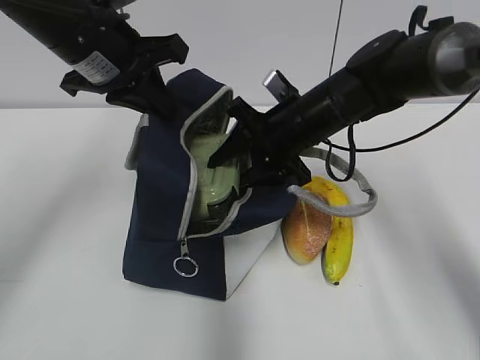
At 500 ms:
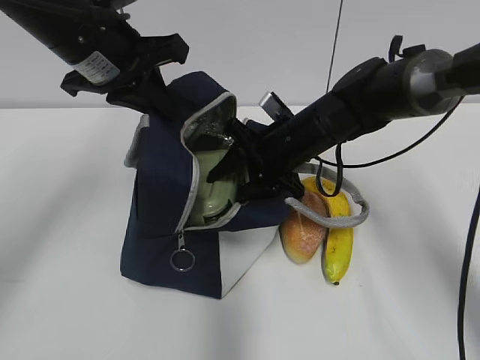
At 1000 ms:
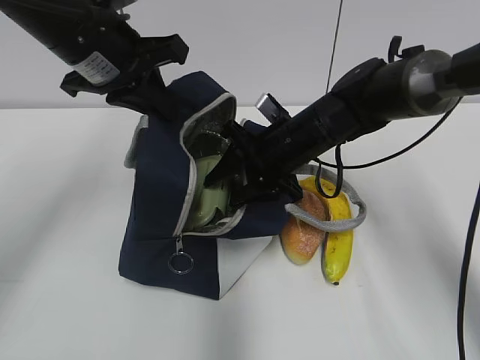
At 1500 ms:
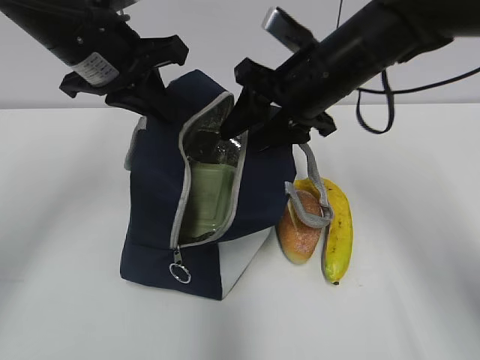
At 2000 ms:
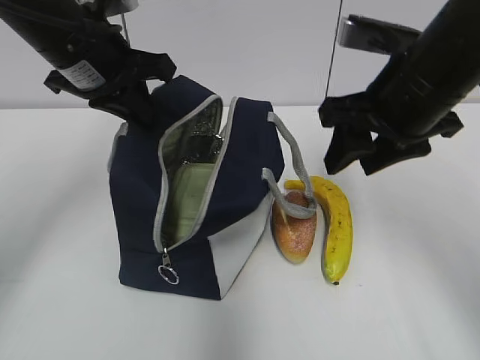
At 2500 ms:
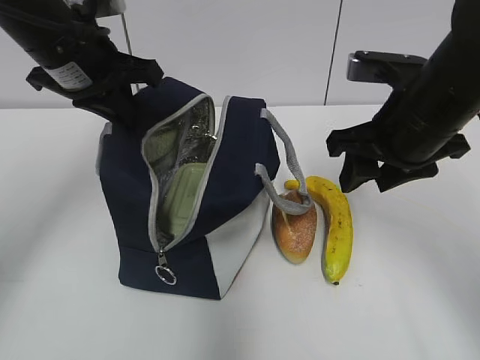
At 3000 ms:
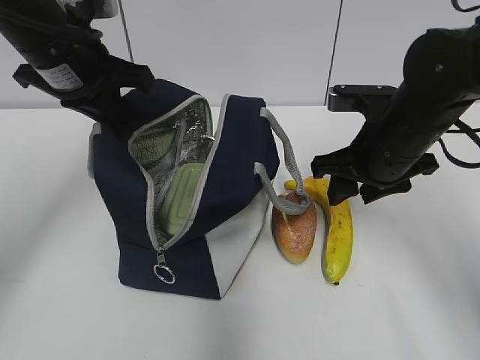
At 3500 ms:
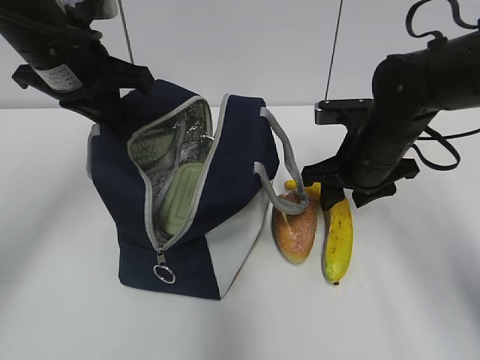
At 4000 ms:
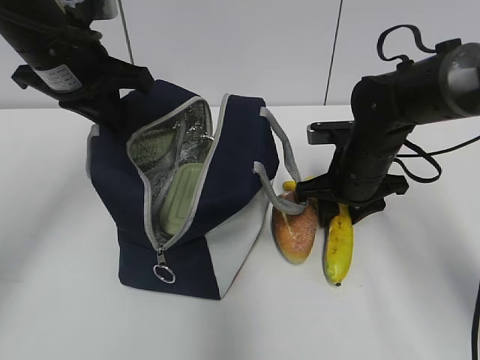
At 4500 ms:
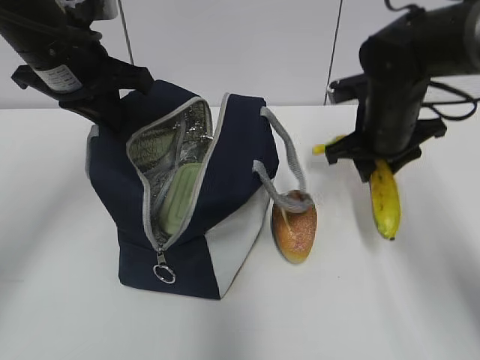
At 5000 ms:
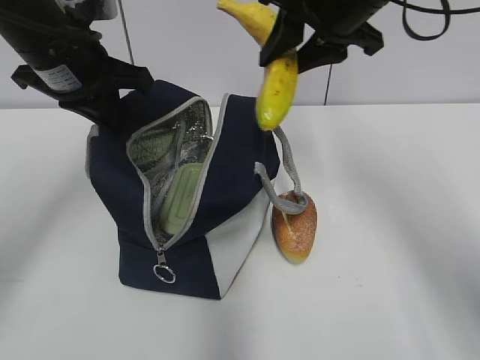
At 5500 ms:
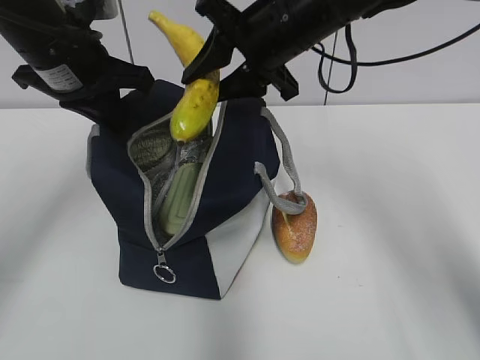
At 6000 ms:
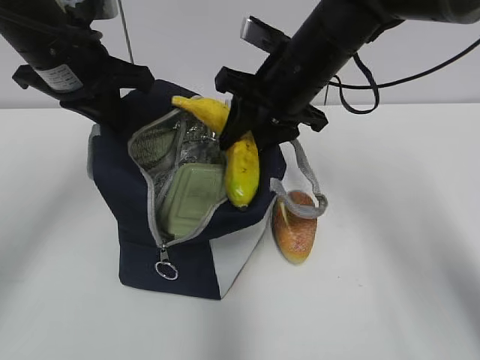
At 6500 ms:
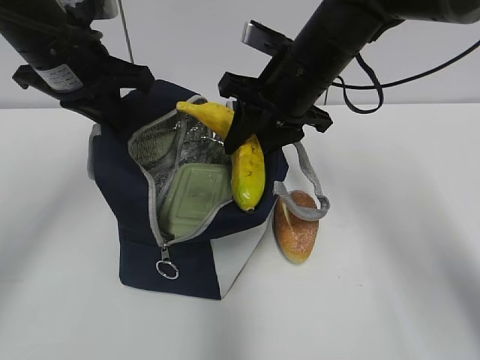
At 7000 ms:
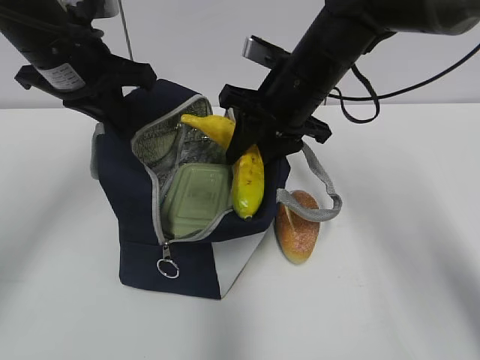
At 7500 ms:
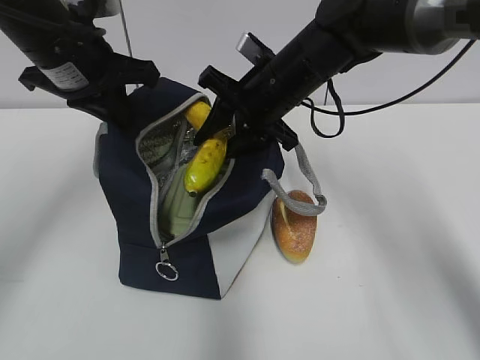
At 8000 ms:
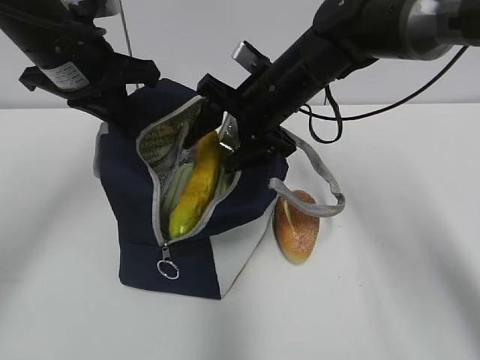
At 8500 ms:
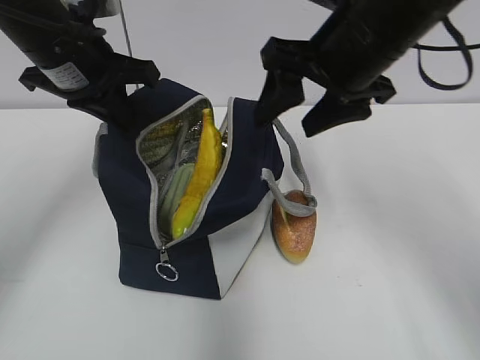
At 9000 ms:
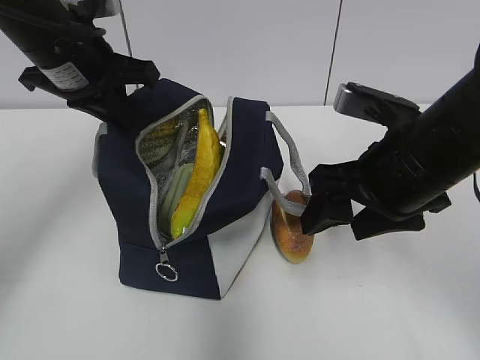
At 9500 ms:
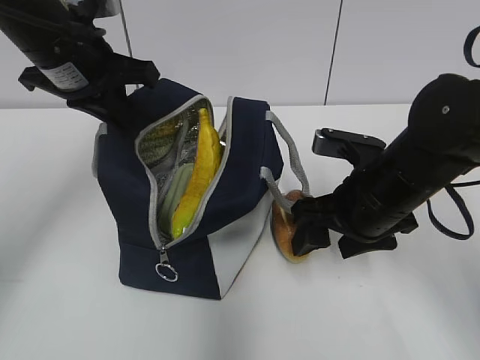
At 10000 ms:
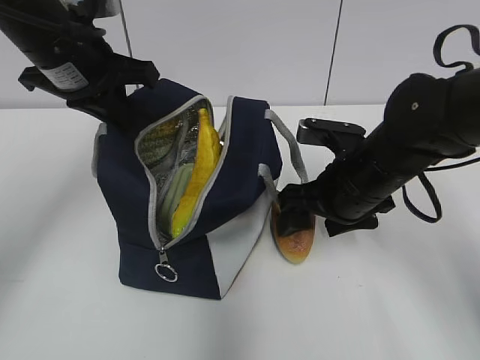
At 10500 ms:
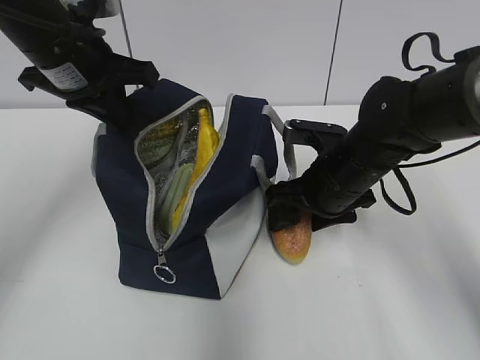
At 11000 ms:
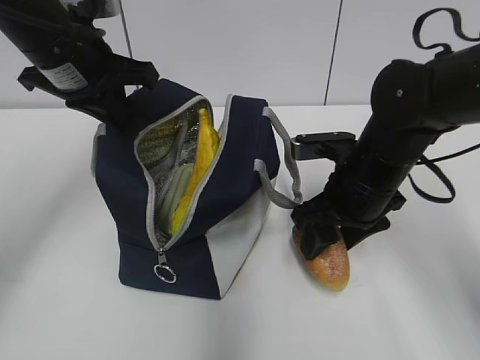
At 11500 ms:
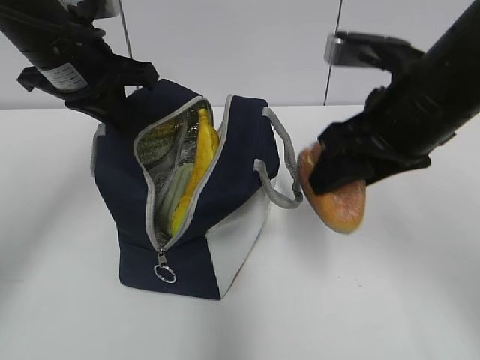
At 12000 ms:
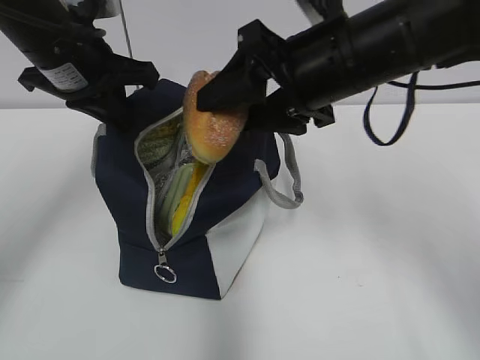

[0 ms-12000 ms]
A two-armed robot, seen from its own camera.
Step, 1500 ms to 4000 ms: Grab the banana with your right hand.
Step, 4500 ms to 8000 ms: Place it into the bag with your right hand.
Step, 8500 ms to 10500 ms: Grab the bread with your right hand.
0 ms to 2000 ms: The right gripper heads upward, backward and to the right, covering some 15 cm.
2000 ms to 4000 ms: The right gripper heads downward and forward, covering some 15 cm.
4000 ms to 6000 ms: The right gripper is displaced upward and to the left by approximately 15 cm.
6000 ms to 8000 ms: The right gripper opens.
8000 ms to 10000 ms: The right gripper moves backward, to the right and downward, approximately 15 cm.
10000 ms to 12000 ms: The right gripper shifts some 15 cm upward.

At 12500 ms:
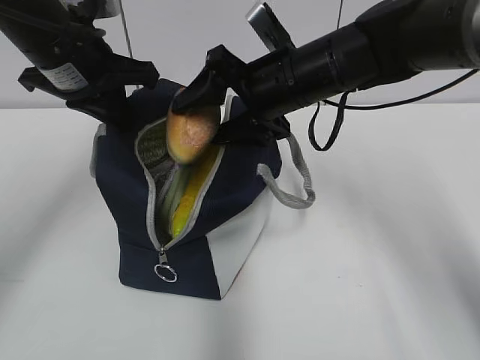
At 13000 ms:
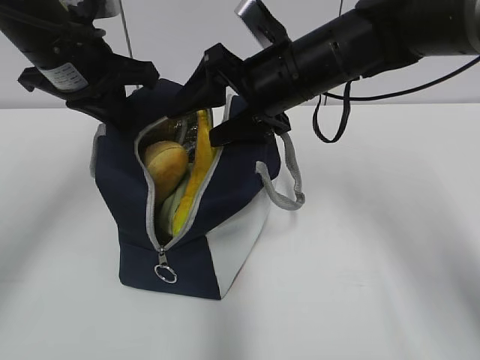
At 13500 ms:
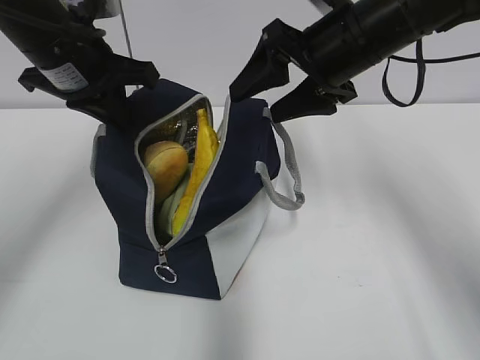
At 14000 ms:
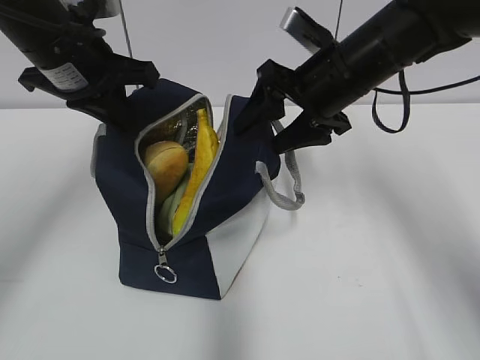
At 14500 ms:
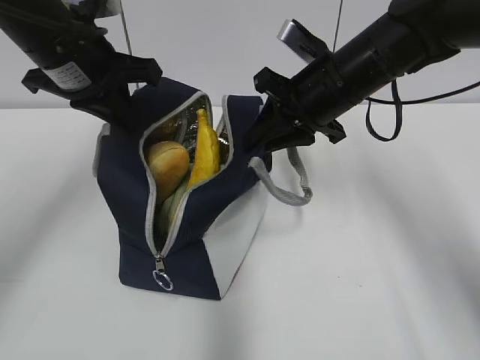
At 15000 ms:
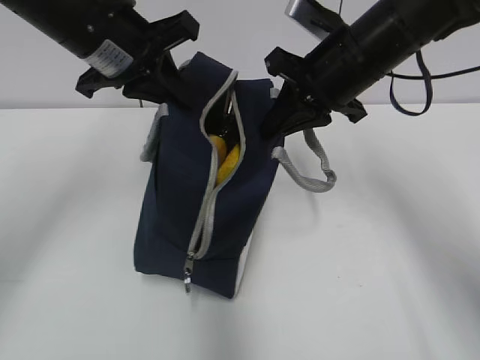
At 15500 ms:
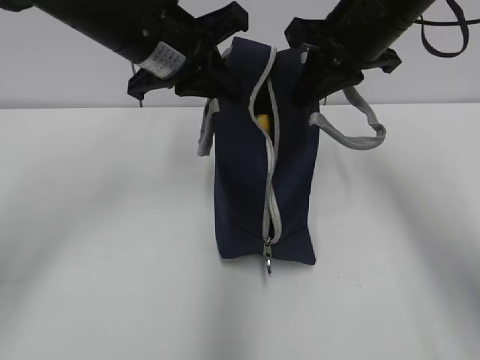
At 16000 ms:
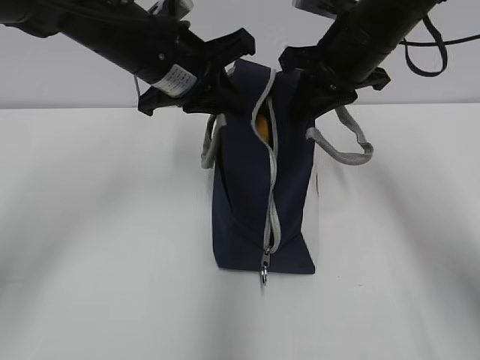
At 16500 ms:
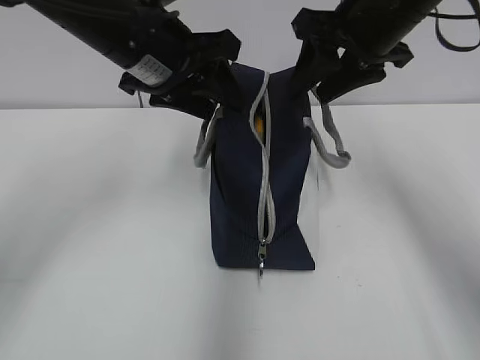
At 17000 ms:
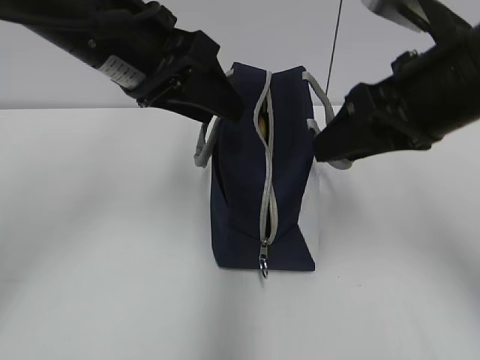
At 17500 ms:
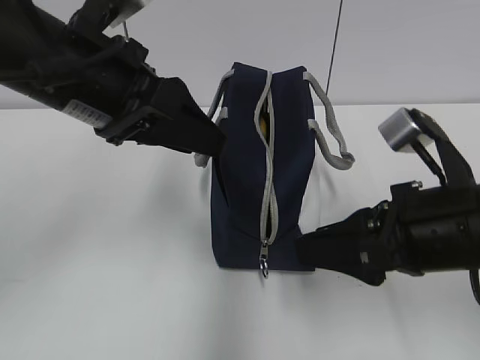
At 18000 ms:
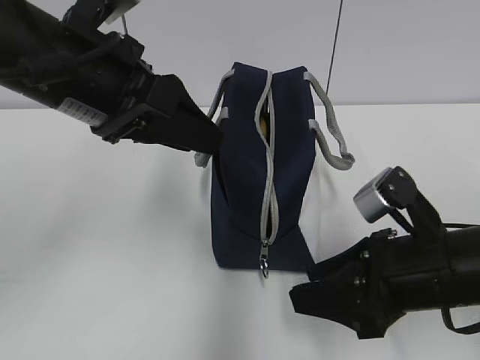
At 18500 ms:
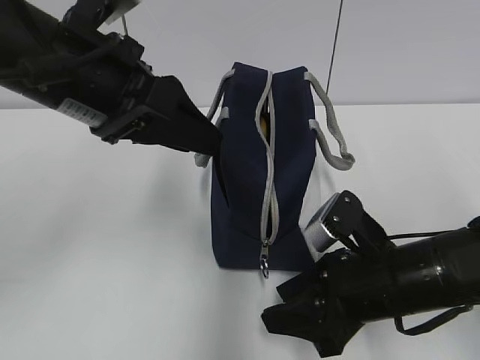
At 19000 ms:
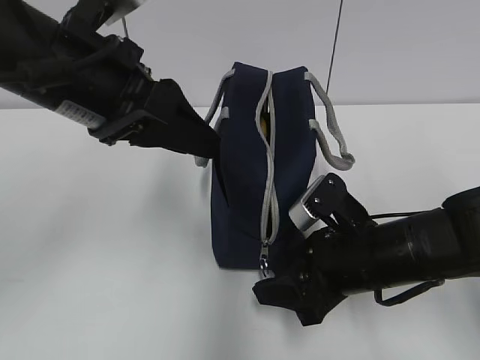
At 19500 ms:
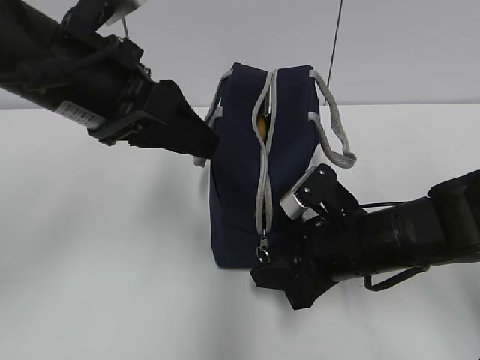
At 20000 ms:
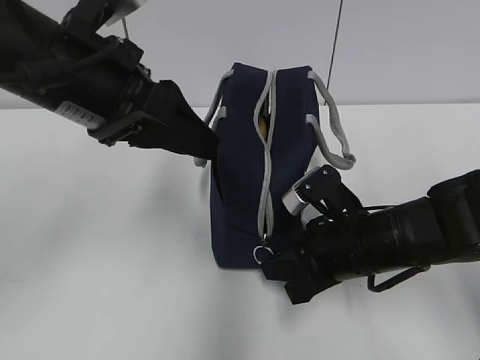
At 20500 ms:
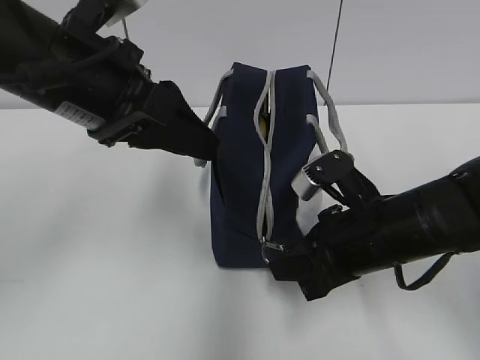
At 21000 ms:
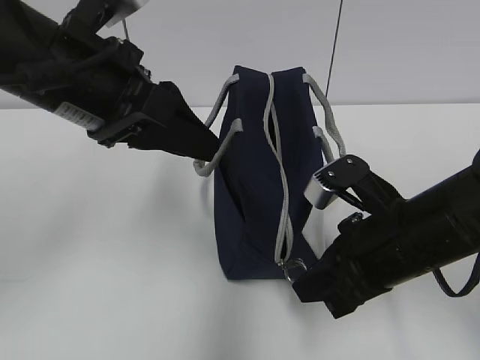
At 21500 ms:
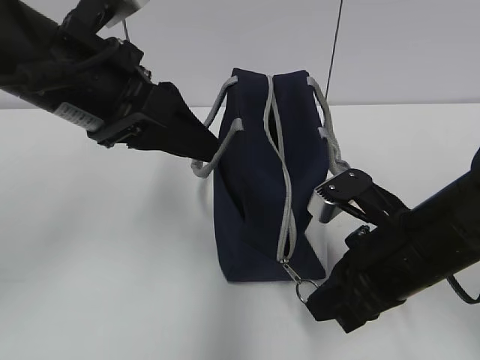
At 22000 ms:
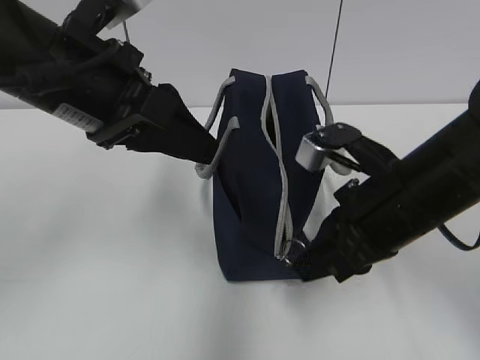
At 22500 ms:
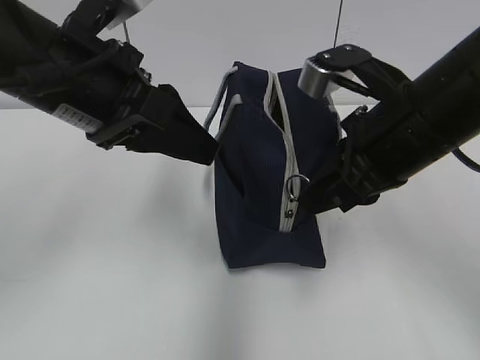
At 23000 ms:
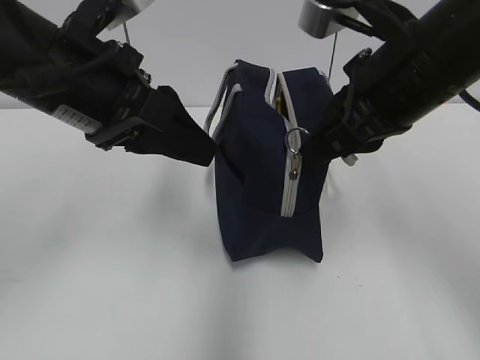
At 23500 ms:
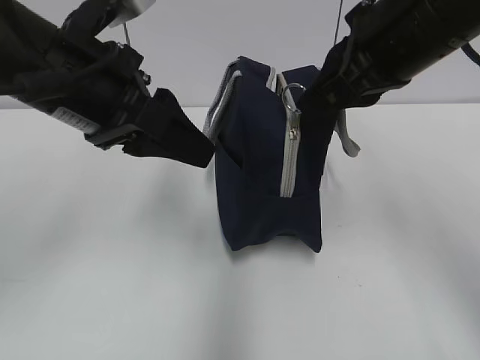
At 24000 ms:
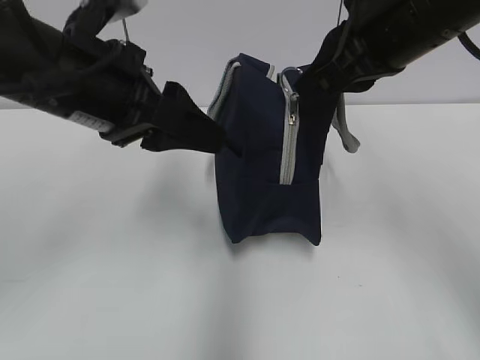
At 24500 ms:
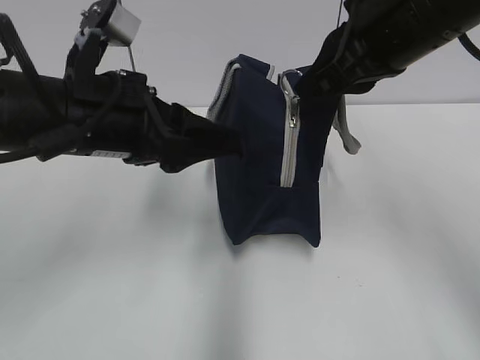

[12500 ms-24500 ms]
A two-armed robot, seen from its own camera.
Step, 13000 ms to 14500 ms: Grab the lunch bag with your right hand.
Step, 15000 ms to 16000 ms: Move the lunch bag to the right.
12500 ms to 14500 ms: The right gripper moves to the right, roughly 5 cm, and closes its fingers.
14500 ms to 16500 ms: The left gripper moves to the right, approximately 5 cm, and opens up. The right gripper travels upward by about 10 cm.
16500 ms to 18500 ms: The right gripper moves downward and backward, about 25 cm. Meanwhile the left gripper heads backward, covering roughly 10 cm.
18500 ms to 20500 ms: The right gripper closes its fingers.
20500 ms to 22500 ms: The right gripper is displaced upward by roughly 10 cm.
22500 ms to 24500 ms: The right gripper travels upward by approximately 10 cm.

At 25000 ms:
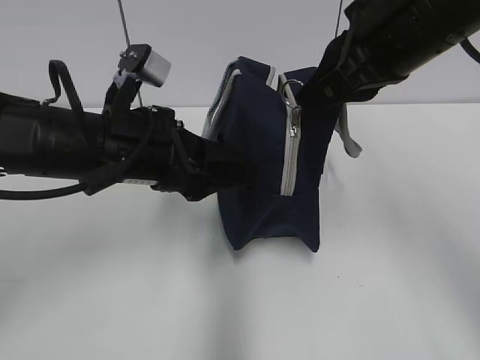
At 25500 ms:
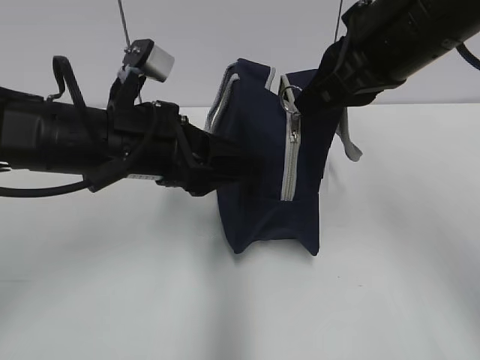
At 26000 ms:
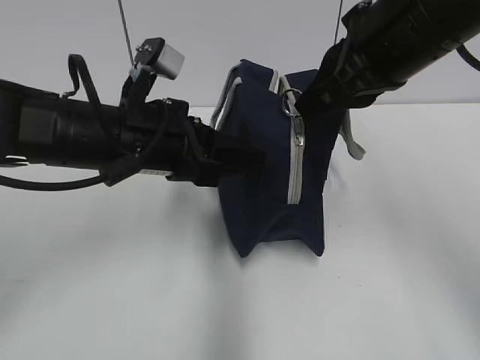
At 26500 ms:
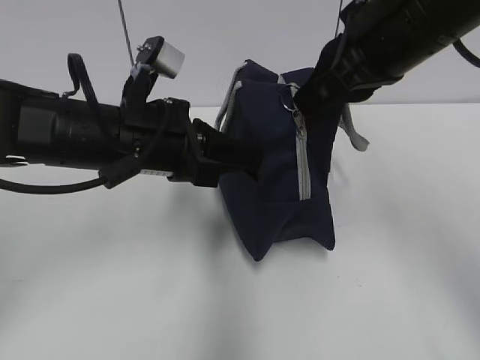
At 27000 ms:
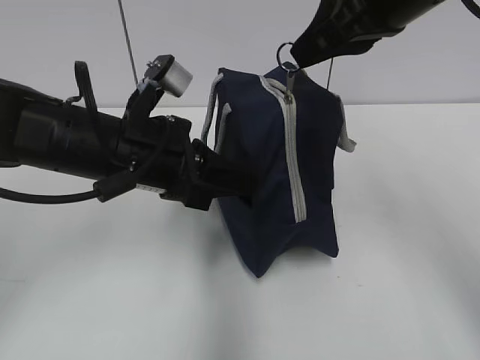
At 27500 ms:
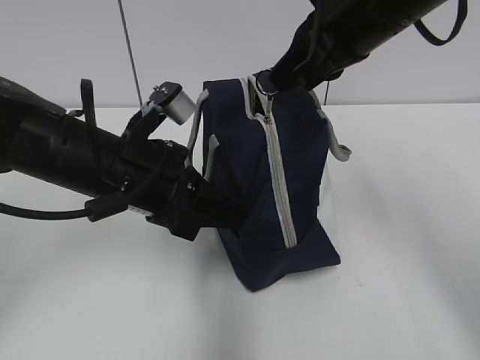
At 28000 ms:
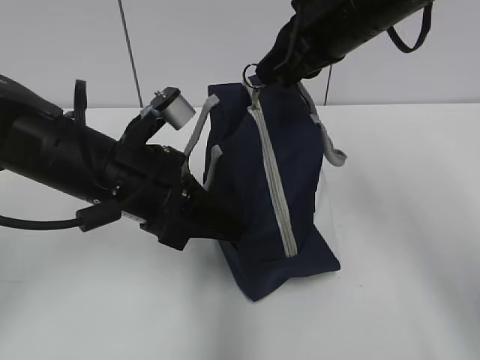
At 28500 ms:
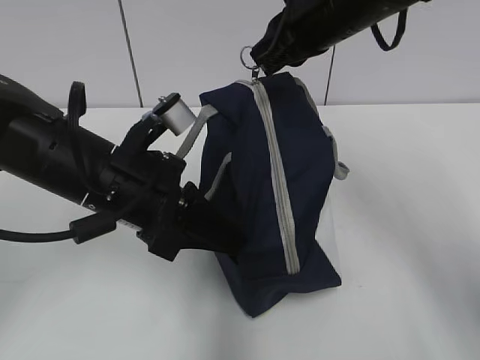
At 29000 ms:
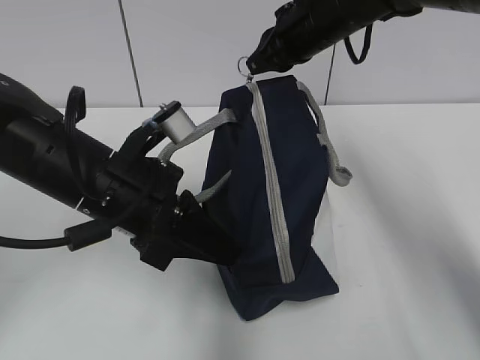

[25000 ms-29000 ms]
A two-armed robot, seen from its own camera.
25000 ms to 27000 ms: The left gripper closes.
27000 ms to 29000 ms: The right gripper moves forward and downward, approximately 20 cm.
